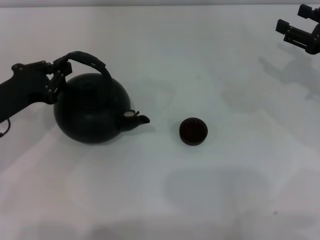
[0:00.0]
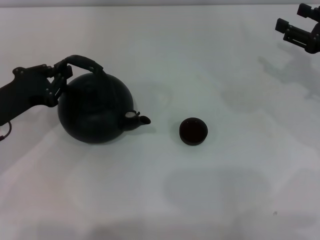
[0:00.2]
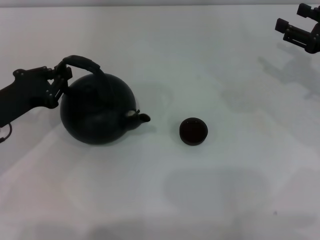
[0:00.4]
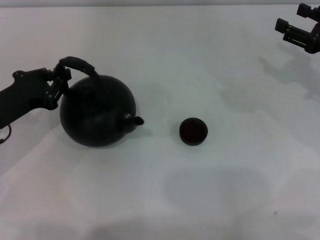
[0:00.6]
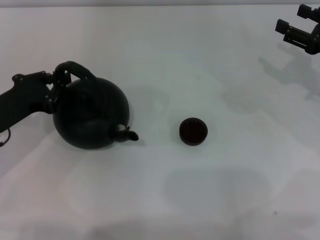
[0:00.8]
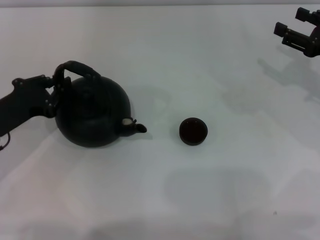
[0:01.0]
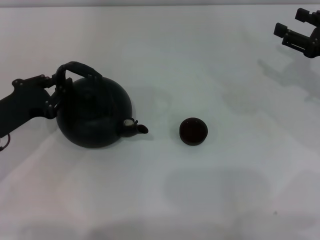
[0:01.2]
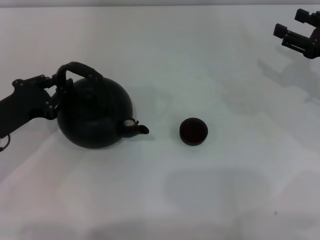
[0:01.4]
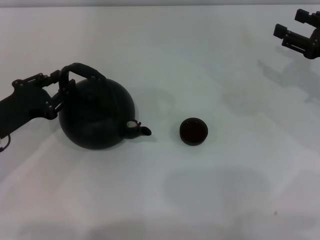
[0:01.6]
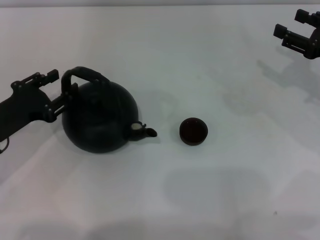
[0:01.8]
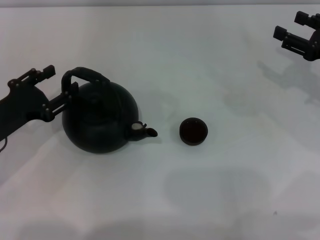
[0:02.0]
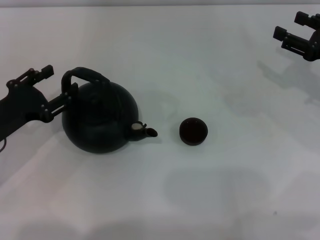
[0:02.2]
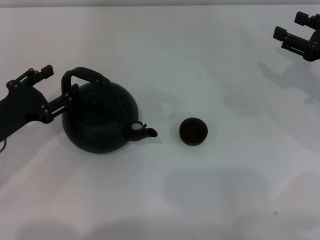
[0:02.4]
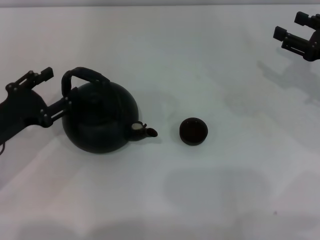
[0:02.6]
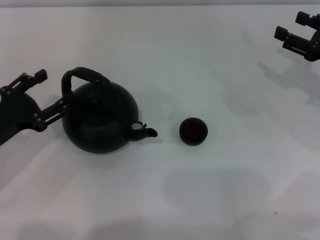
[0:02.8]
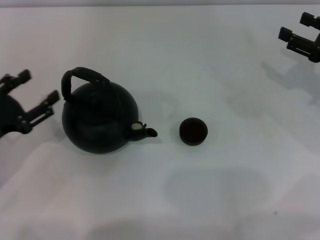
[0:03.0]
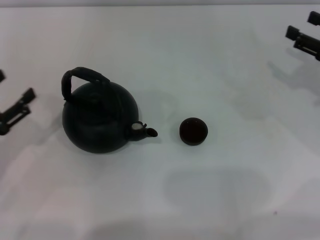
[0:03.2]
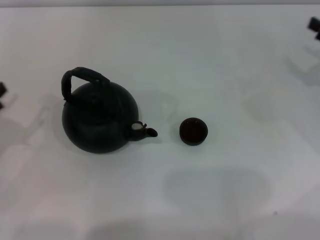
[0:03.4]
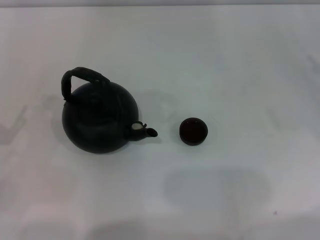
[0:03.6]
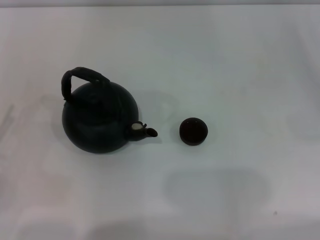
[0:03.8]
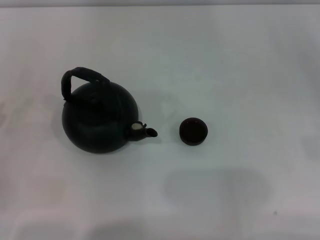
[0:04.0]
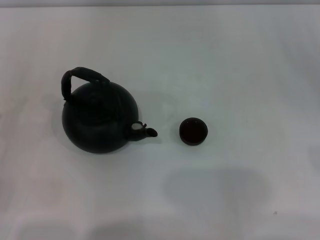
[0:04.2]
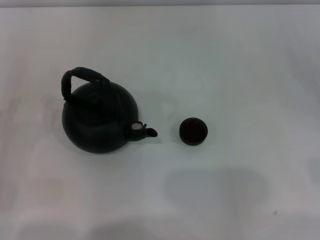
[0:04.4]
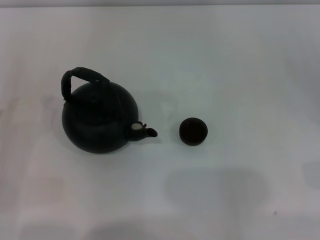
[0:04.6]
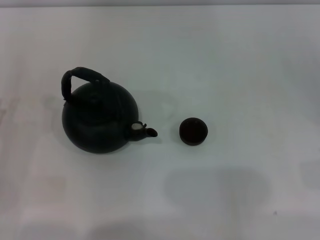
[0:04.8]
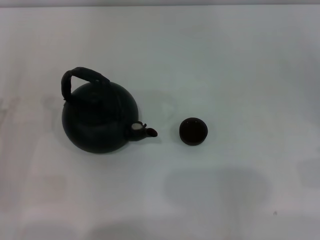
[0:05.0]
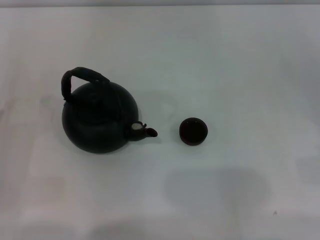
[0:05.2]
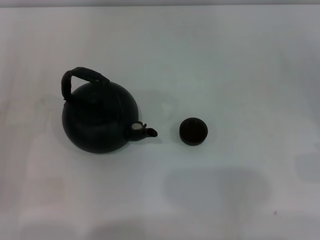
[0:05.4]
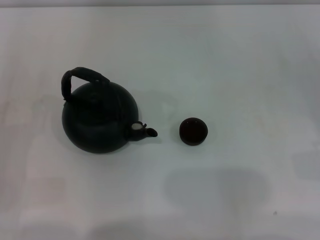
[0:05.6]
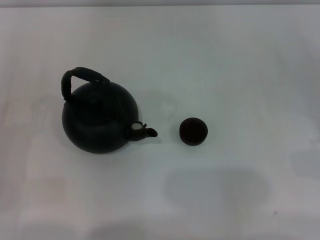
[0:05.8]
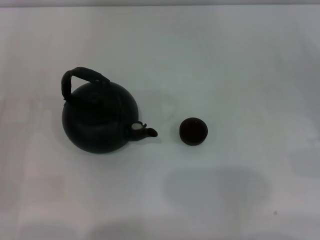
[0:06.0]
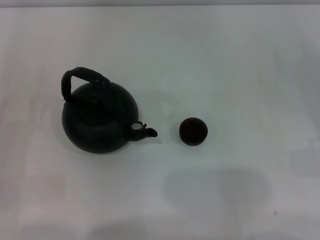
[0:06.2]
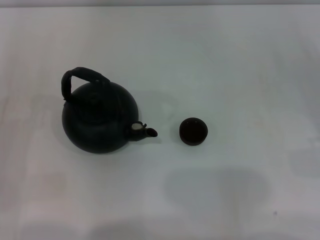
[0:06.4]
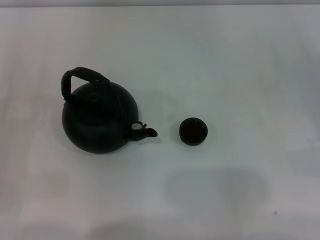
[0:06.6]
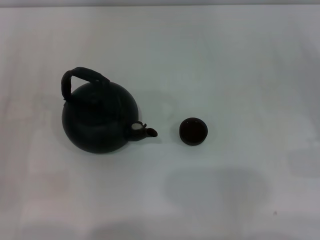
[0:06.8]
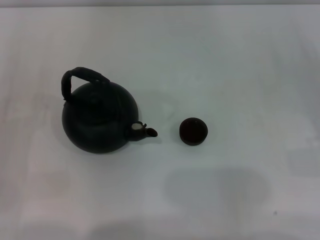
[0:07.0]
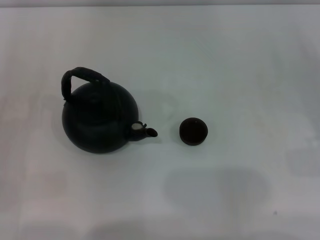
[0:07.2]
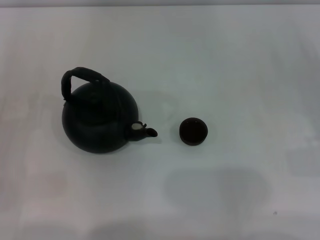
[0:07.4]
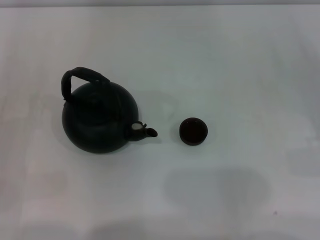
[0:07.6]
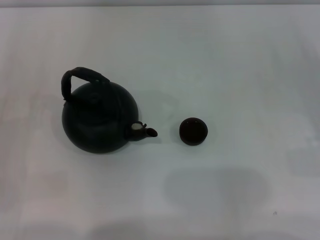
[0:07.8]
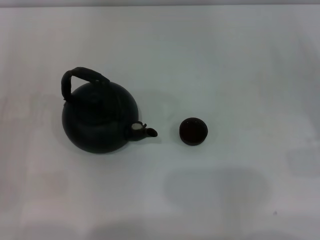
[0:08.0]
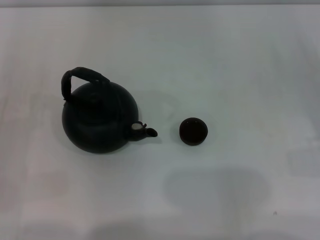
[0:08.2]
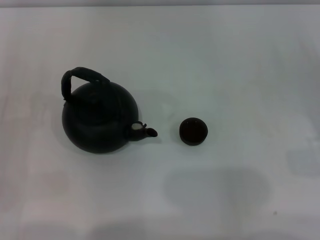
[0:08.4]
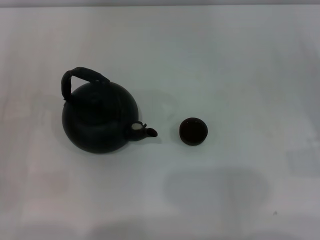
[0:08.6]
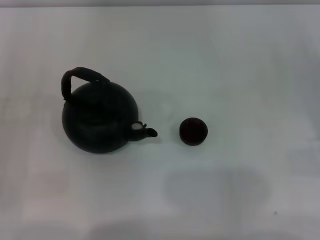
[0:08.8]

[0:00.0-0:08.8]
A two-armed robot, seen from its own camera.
Task of the whole recording: Grasp the handle of the teapot with one hand and pour tea into the teacup.
Step, 0:00.0 to 0:02.8: Put down the teapot with the left gripper.
0:00.0 to 0:01.4: The grippers stay close to where they were, moving slightly.
0:01.4 to 0:03.0: The left gripper moves some 5 cm, and opens up.
0:03.0 to 0:04.4: The right gripper goes roughly 15 cm backward and to the right. The left gripper travels to the left by some 5 cm.
0:05.8 to 0:08.8: Both grippers stay put.

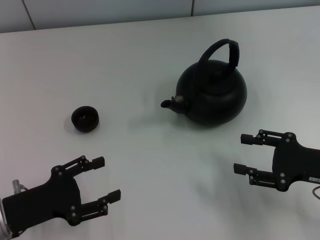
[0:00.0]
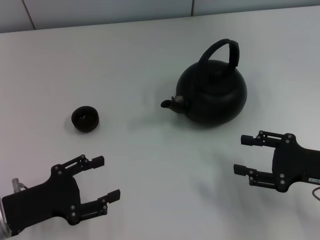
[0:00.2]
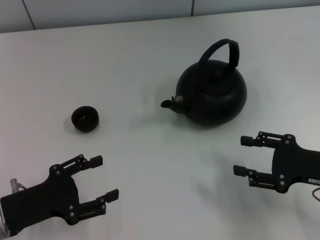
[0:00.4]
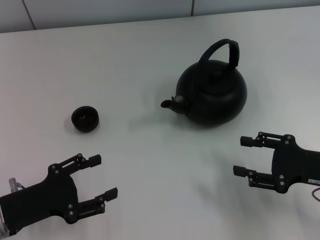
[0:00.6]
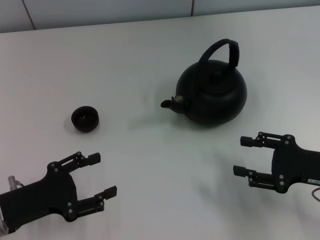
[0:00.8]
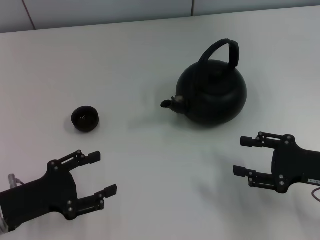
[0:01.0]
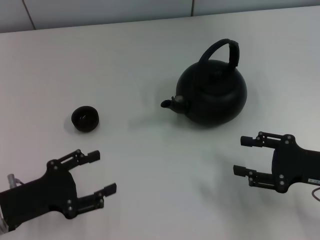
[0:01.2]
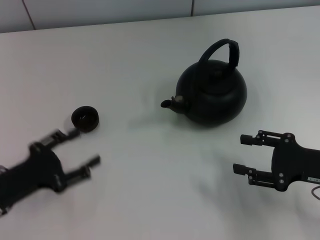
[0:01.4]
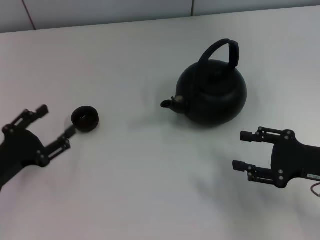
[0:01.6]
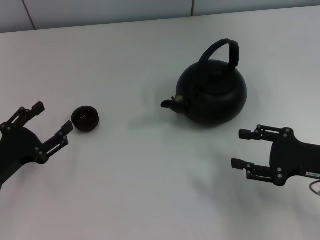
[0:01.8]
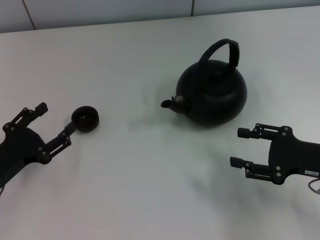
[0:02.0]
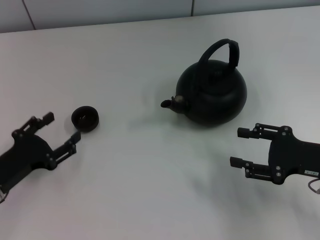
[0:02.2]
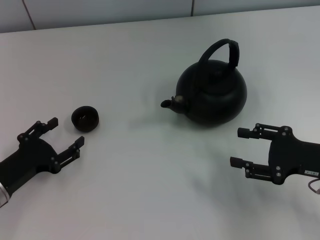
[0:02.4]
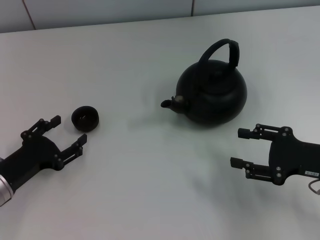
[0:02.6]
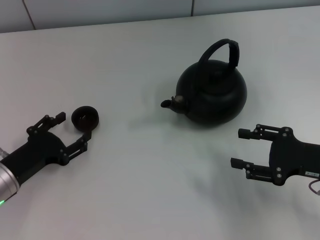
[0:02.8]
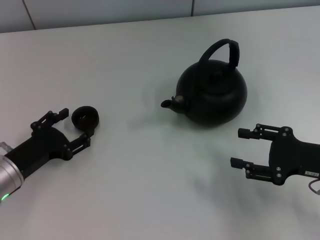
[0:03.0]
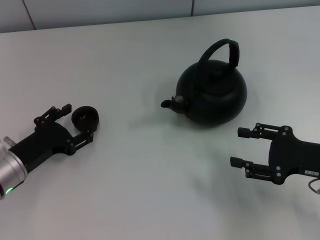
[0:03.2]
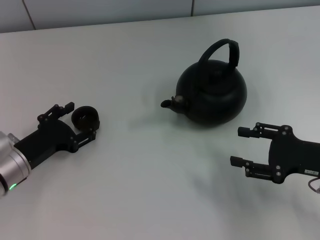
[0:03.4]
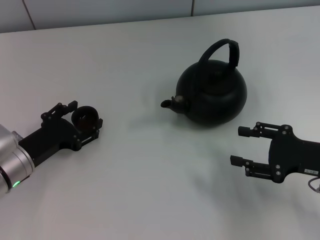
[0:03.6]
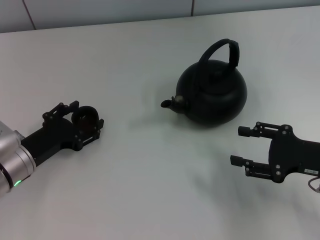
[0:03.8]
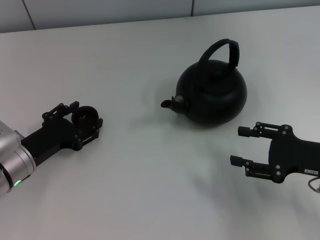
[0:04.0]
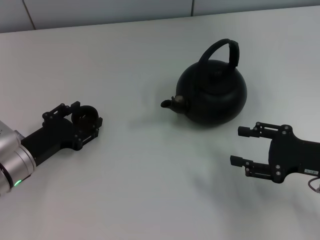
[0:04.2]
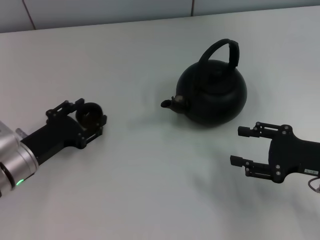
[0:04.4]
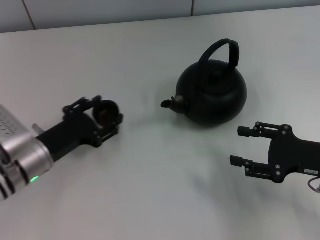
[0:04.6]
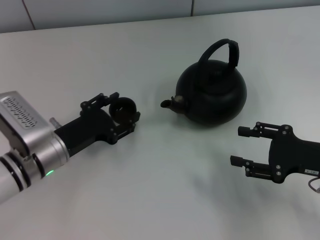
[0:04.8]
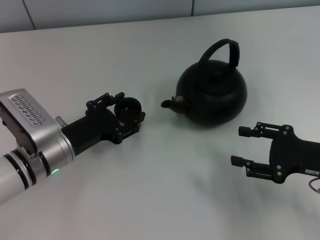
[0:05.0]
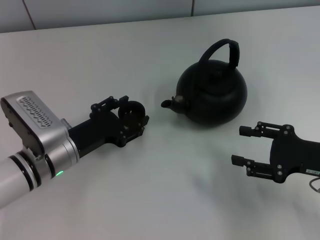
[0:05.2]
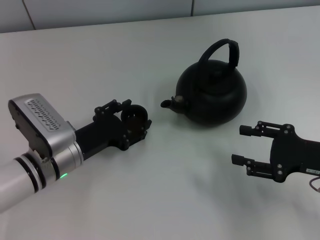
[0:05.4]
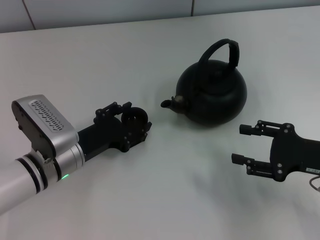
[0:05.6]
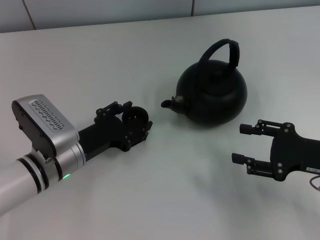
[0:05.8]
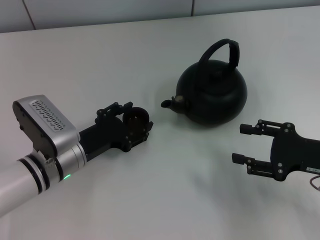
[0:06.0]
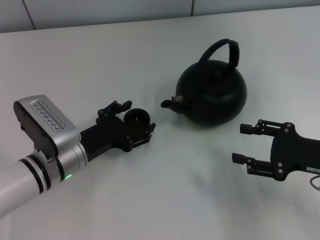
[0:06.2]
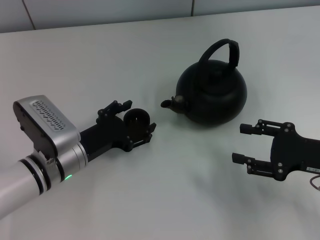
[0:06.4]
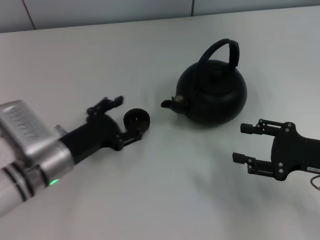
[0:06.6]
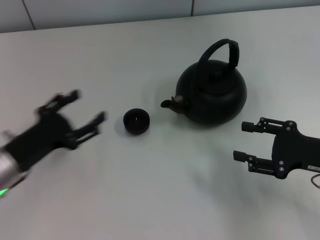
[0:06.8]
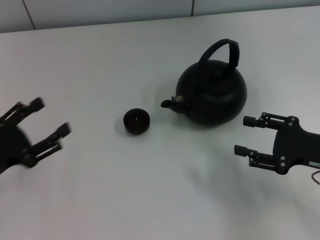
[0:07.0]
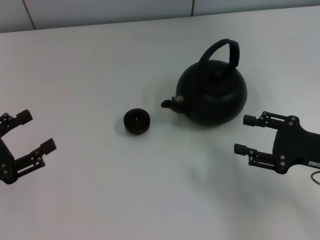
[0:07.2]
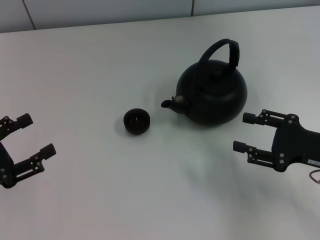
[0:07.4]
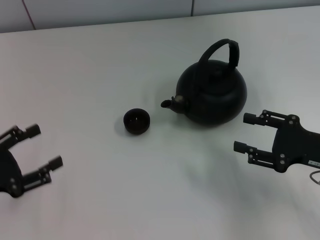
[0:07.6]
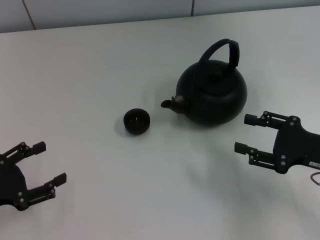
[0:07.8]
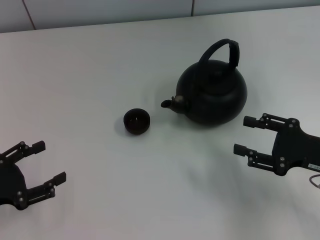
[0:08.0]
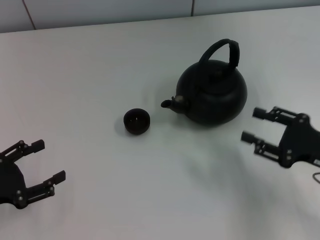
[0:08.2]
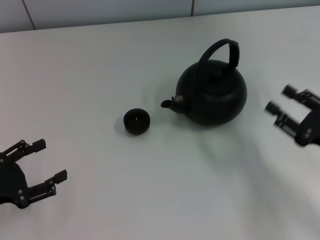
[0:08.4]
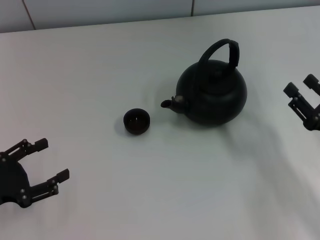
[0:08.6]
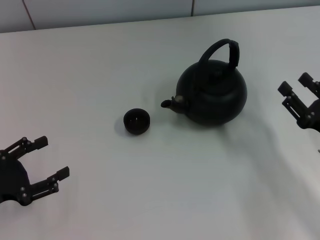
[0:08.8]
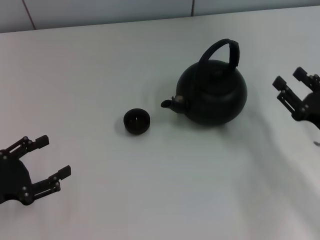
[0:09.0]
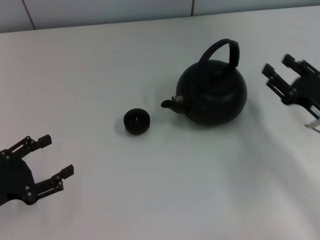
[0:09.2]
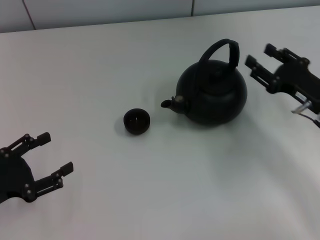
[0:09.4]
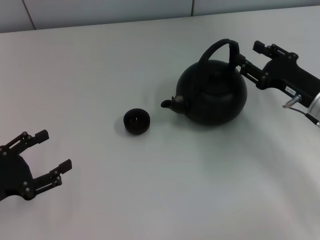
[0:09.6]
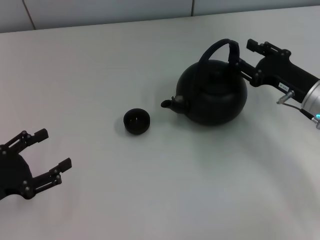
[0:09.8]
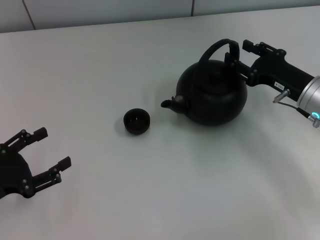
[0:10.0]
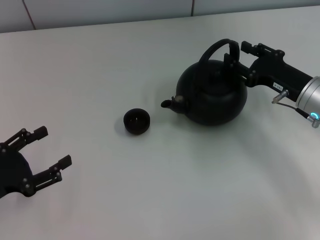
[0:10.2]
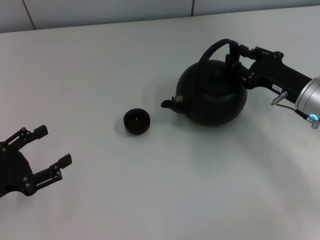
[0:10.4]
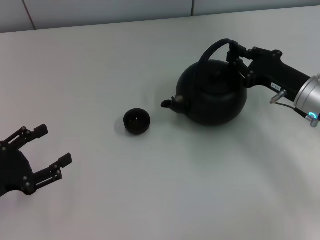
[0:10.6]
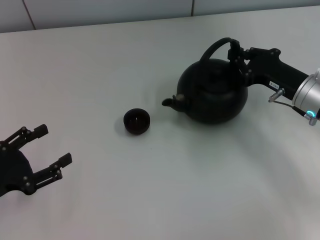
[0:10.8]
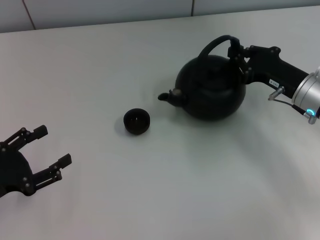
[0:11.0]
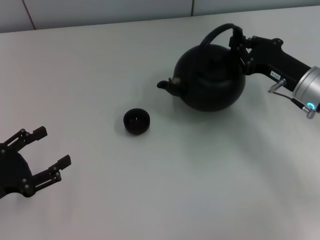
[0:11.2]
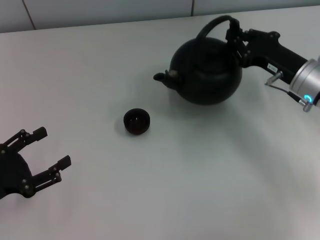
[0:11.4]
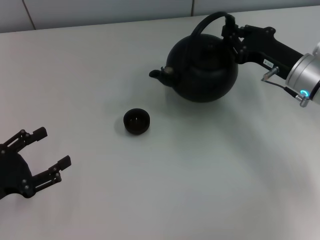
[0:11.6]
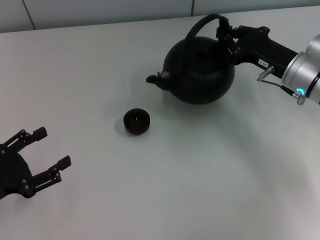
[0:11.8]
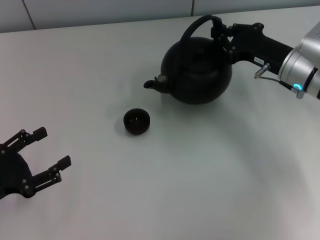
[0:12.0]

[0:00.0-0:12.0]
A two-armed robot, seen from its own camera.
Task of the whole recording: Grasp the handle of the teapot with one hand and pour tea into the teacup.
Step, 0:00.0 to 0:04.4: Pick up the teacup with the left gripper.
Step, 0:04.6 to 0:06.6: Place the teacup in the center of view with the left gripper.
Step, 0:06.8 to 0:11.6: Pick up the teapot with the right gripper.
0:01.6 to 0:03.0: The grippers stay close to where they were, moving slightly.
0:03.0 to 0:04.4: The grippers move only a little.
0:04.4 to 0:06.0: The left gripper moves to the right, approximately 5 cm.
0:06.0 to 0:07.6: The left gripper is displaced to the left and backward by approximately 20 cm, and opens up.
0:09.0 to 0:10.4: The right gripper goes roughly 10 cm forward.
0:10.4 to 0:12.0: The right gripper shifts by some 5 cm, and closes up.

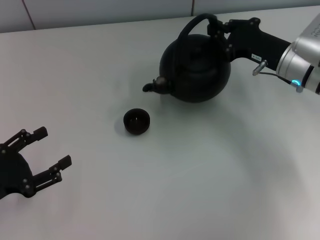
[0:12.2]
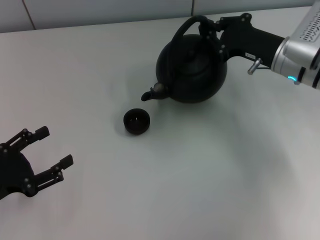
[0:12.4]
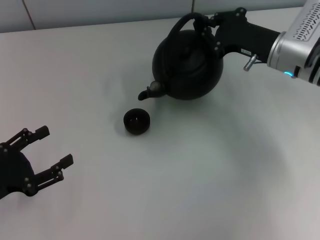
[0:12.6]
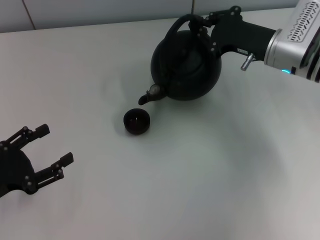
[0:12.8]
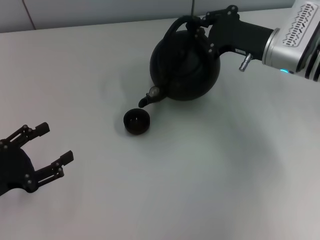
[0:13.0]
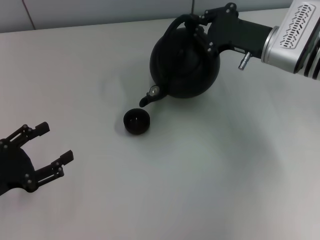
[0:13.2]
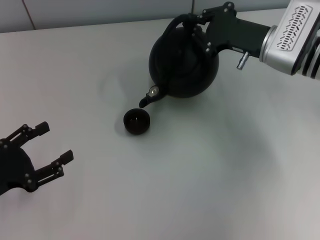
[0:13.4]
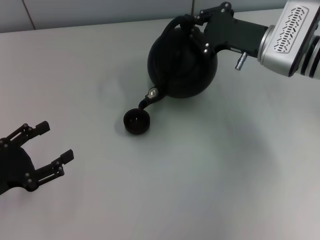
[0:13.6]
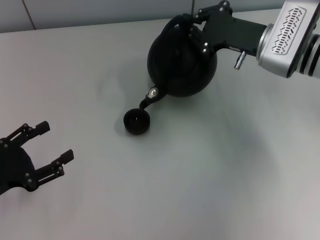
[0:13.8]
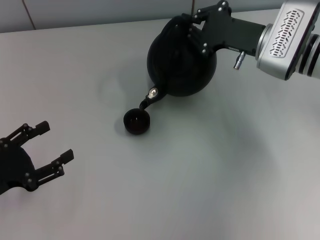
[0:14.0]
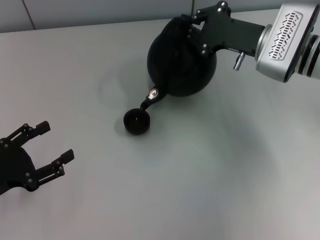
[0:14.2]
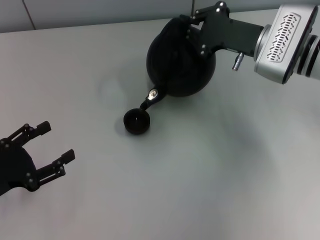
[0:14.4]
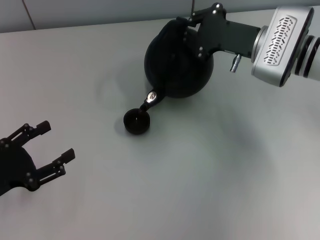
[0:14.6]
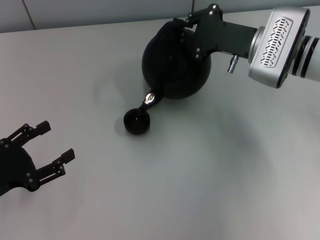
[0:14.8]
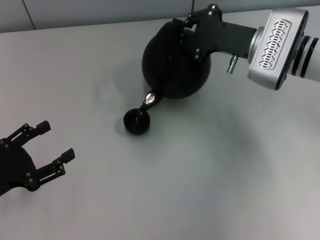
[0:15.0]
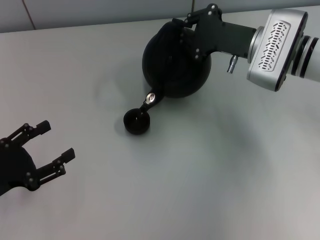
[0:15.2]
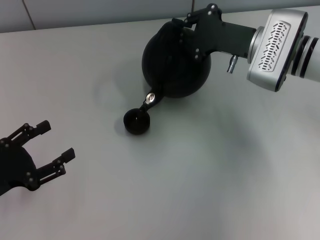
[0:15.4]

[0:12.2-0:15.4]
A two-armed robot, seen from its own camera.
Task of the whole recording: Grasp the handle of the teapot with one hand and pour tea into the teacup.
0:13.8 to 0:15.4: The grippers make only small movements.
